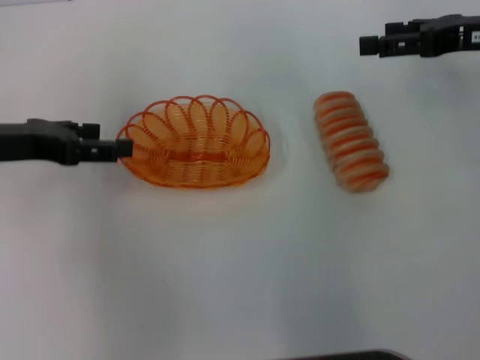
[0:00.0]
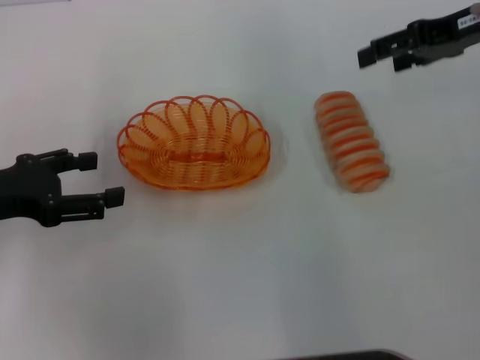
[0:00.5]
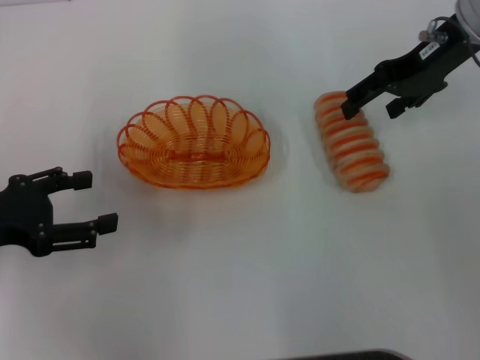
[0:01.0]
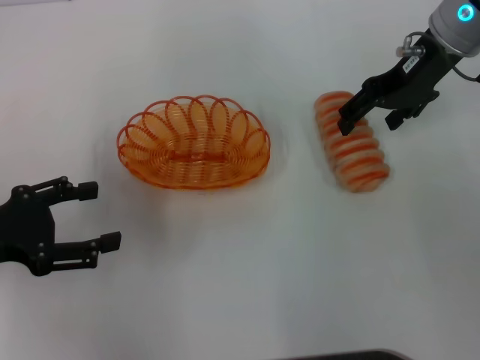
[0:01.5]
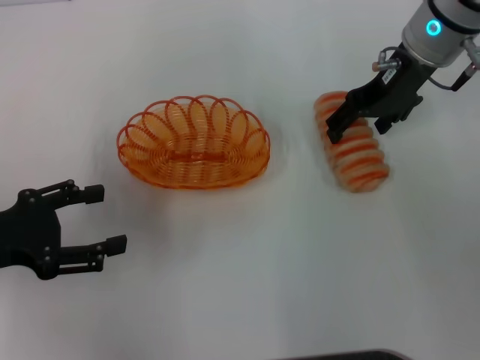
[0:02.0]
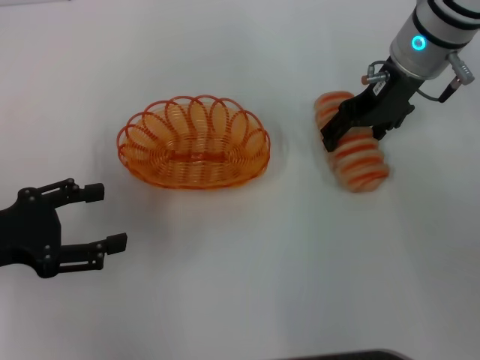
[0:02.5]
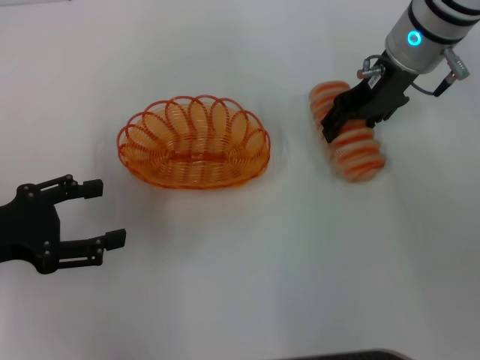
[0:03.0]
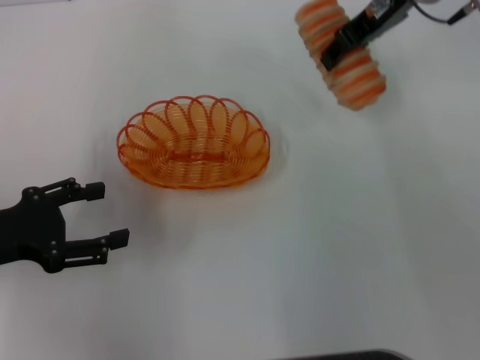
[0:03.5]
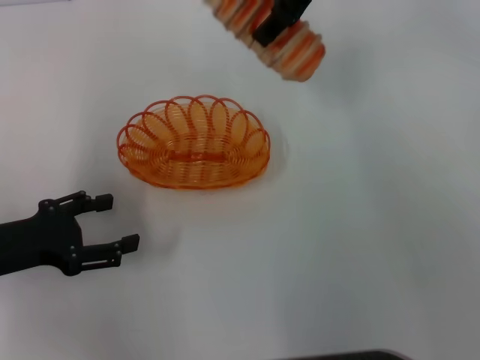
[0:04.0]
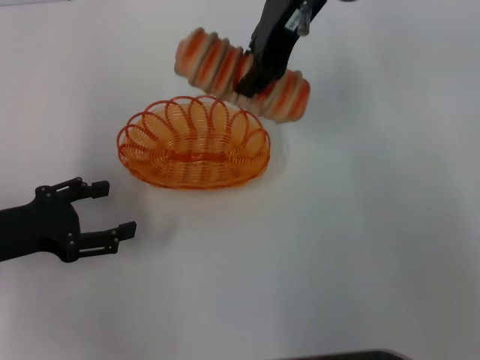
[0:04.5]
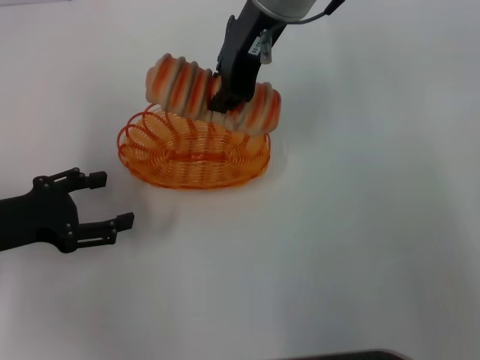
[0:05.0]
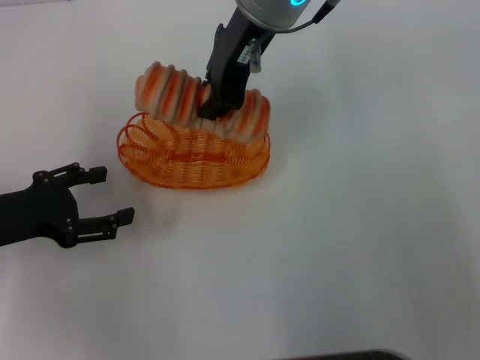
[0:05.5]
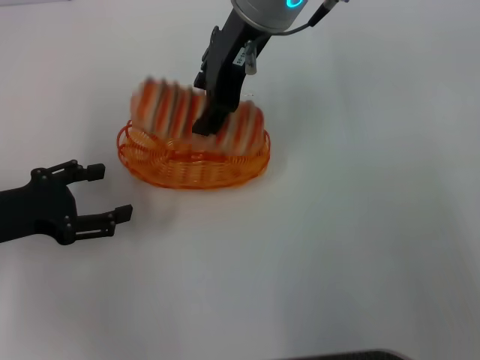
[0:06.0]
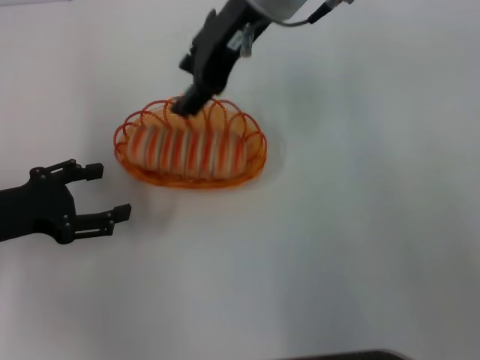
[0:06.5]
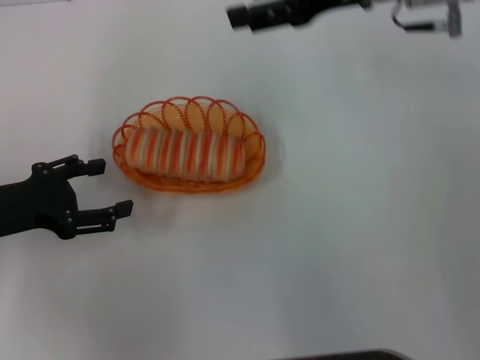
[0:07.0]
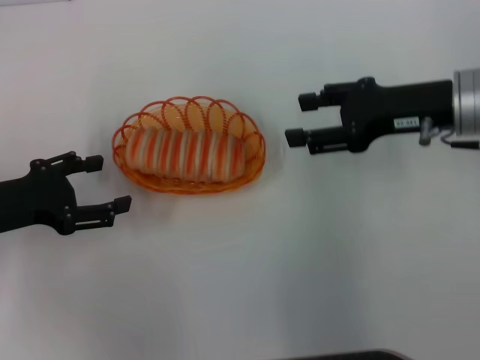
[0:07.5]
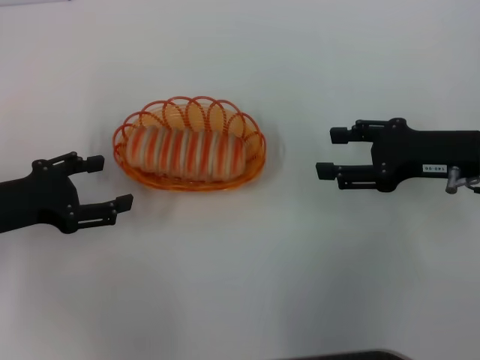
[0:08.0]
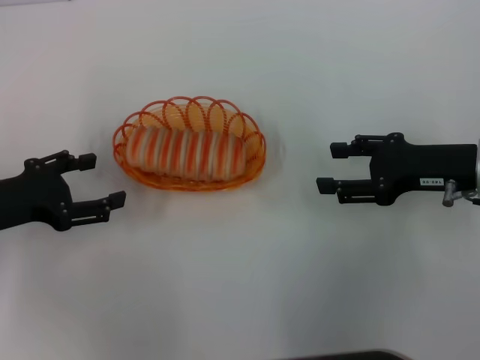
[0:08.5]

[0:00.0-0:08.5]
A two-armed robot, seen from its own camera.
Step, 0:00.0 to 0:03.0: Pick up the long bread with the right gripper.
Step, 0:03.5 to 0:06.0: Place the long bread into the basket with the right gripper.
0:00.0 to 0:02.0: The left gripper shifts roughly 10 cm backward, while the right gripper shifts some 15 cm to the left and forward.
0:02.0 to 0:04.0: The right gripper heads upward and to the left, covering about 10 cm, and closes.
0:04.0 to 0:06.5: The right gripper moves to the left, some 5 cm, and closes, then opens again.
0:06.5 to 0:08.5: The right gripper travels to the right, downward and backward by about 30 cm.
